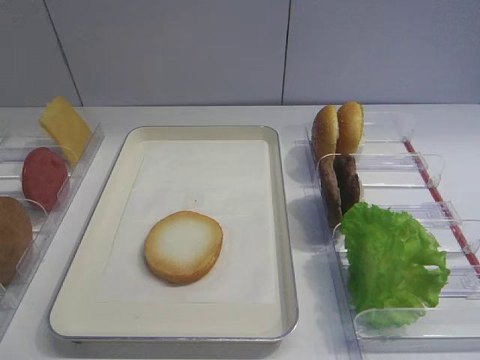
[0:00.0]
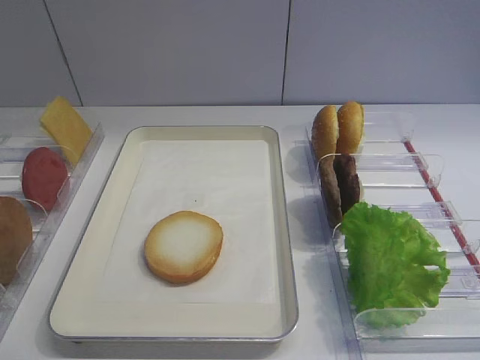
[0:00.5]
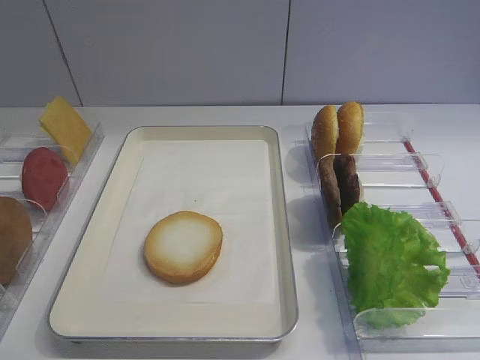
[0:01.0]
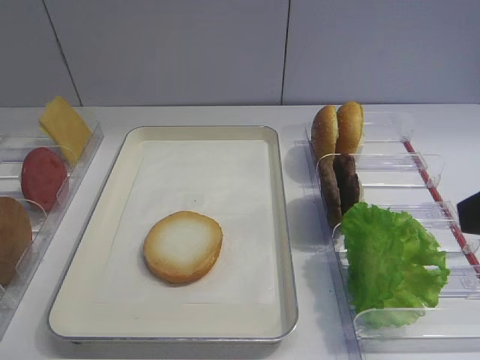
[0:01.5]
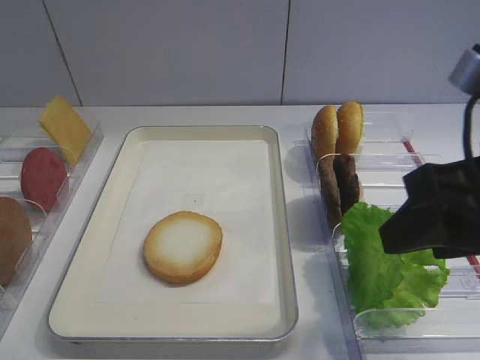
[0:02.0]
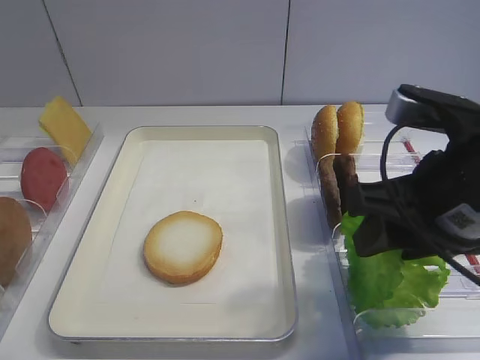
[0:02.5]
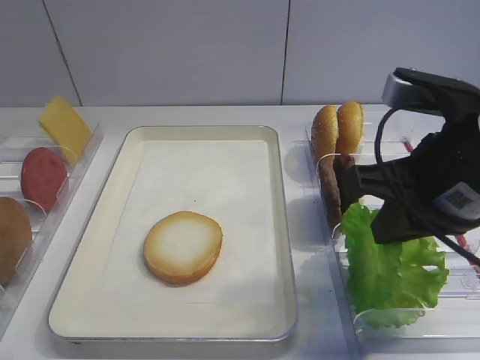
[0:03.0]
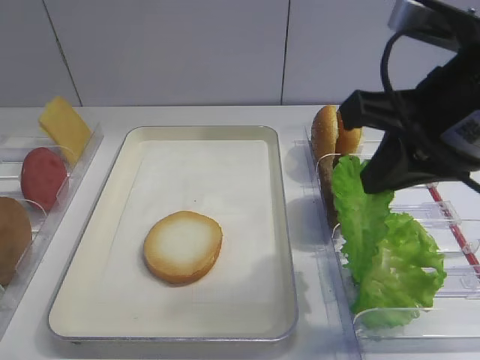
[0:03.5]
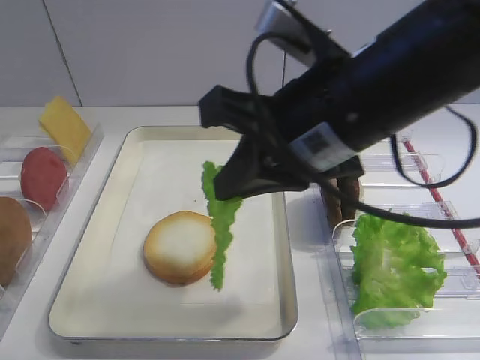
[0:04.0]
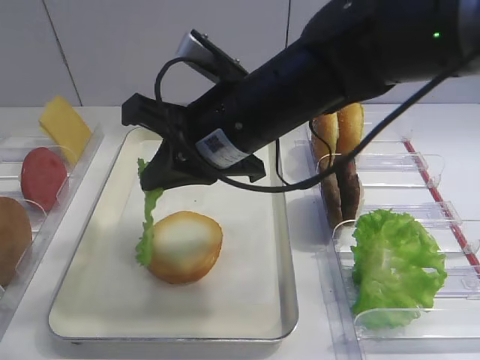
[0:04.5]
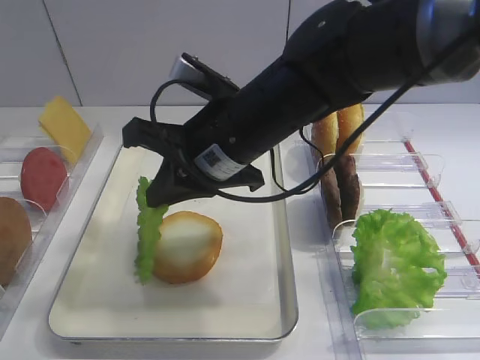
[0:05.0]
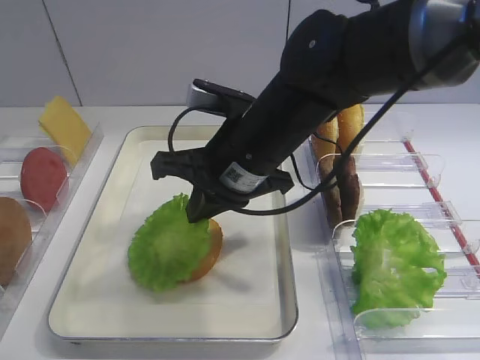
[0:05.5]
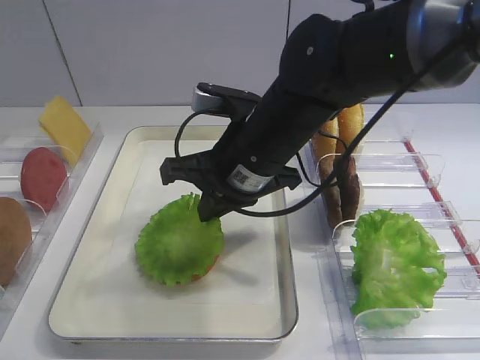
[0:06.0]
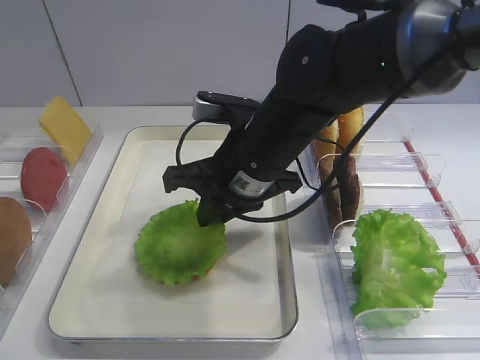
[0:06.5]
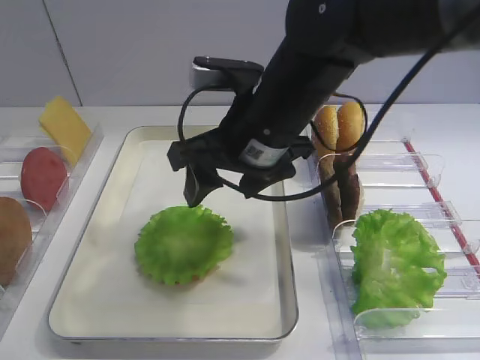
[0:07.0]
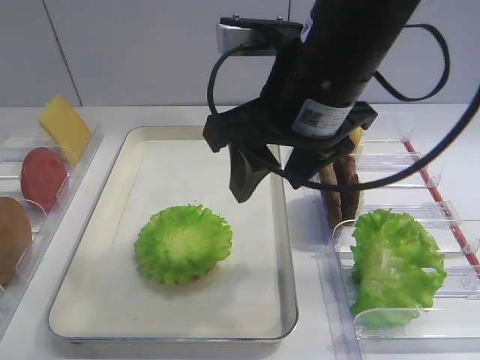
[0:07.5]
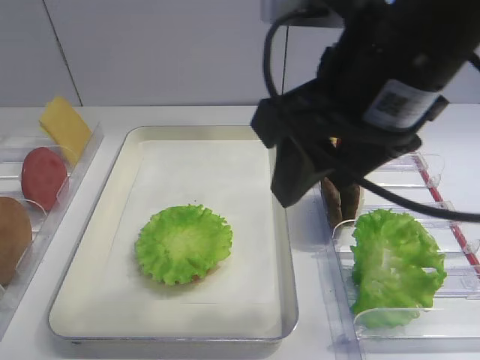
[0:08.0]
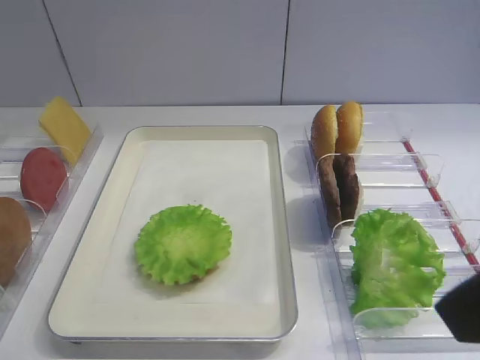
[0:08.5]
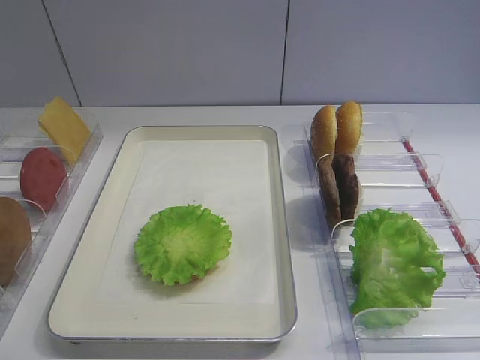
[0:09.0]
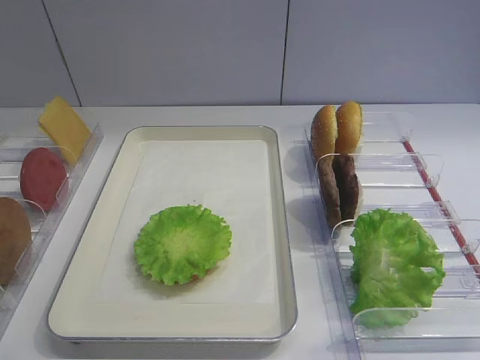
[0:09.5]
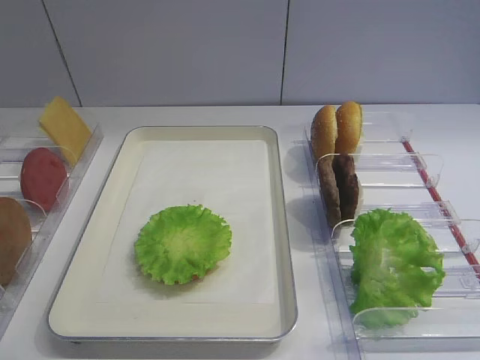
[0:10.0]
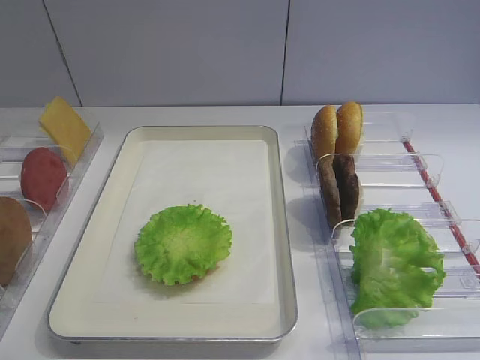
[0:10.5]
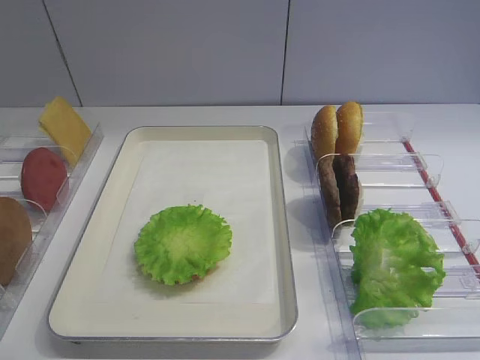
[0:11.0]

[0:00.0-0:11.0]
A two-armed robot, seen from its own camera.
Step, 0:00.0 to 0:03.0: Pick up the lettuce leaf with the right gripper.
Step, 0:03.5 to 0:07.0: Place the lettuce leaf on the bread slice with the right gripper.
0:02.0 to 0:03.5: The right gripper shifts by roughly 5 cm, and closes its fingers.
0:03.5 to 0:05.5: The right gripper goes approximately 20 cm to the left, downward and forward.
0:05.5 to 0:07.5: The right gripper is displaced upward by roughly 10 cm, and opens.
0:07.5 to 0:09.0: The right gripper moves backward and to the right, about 30 cm.

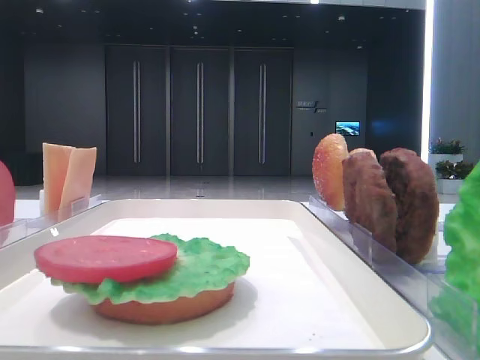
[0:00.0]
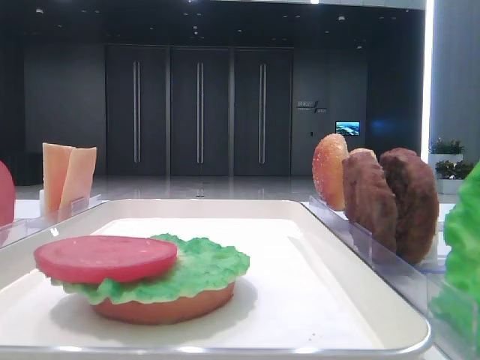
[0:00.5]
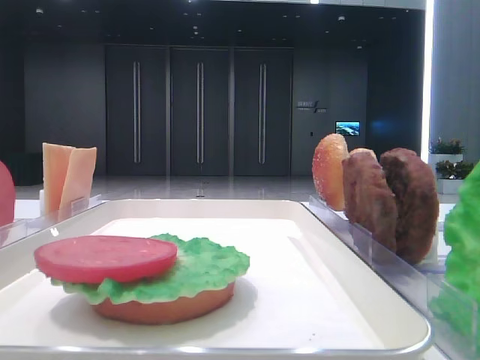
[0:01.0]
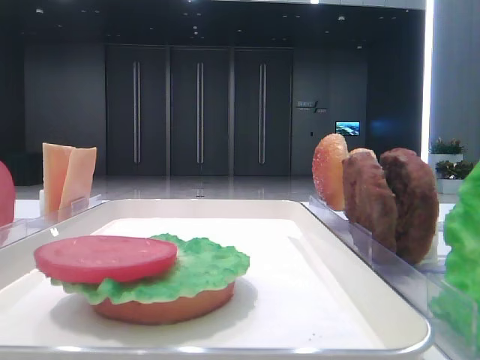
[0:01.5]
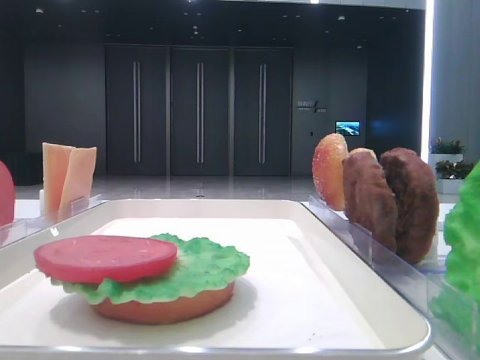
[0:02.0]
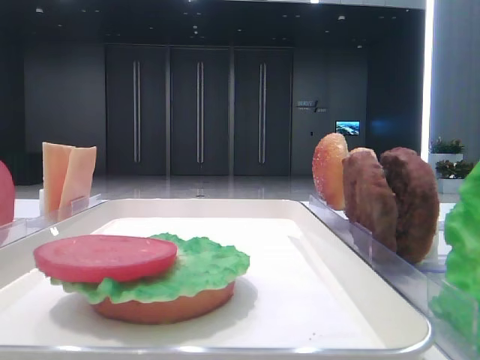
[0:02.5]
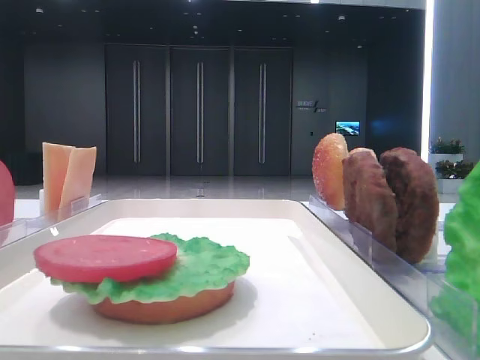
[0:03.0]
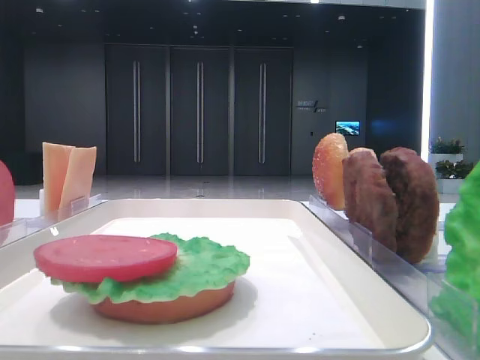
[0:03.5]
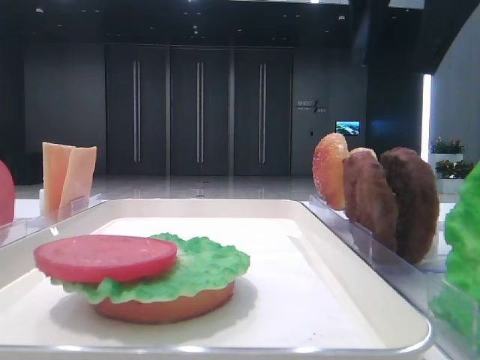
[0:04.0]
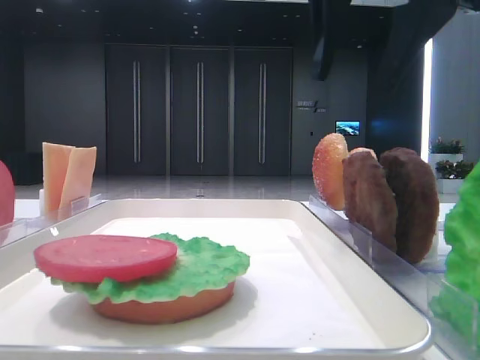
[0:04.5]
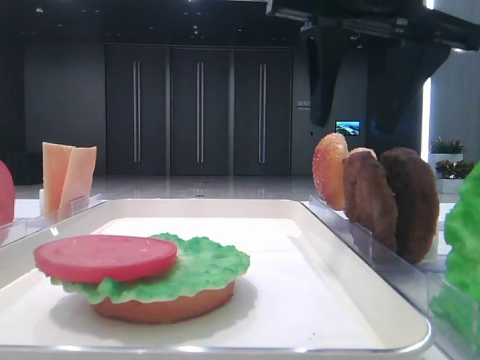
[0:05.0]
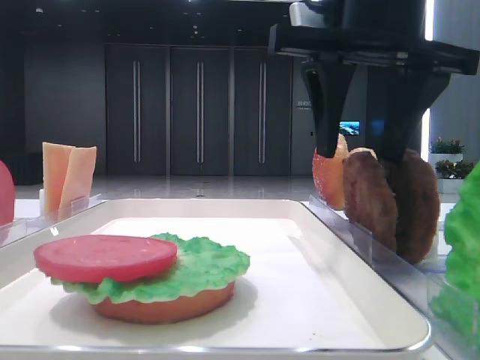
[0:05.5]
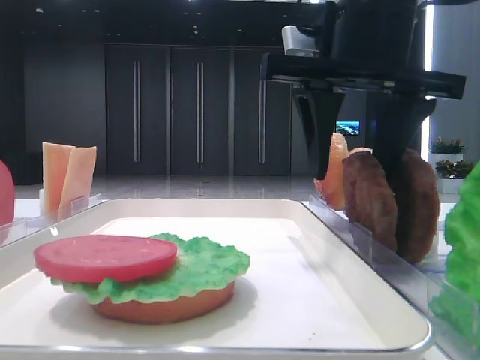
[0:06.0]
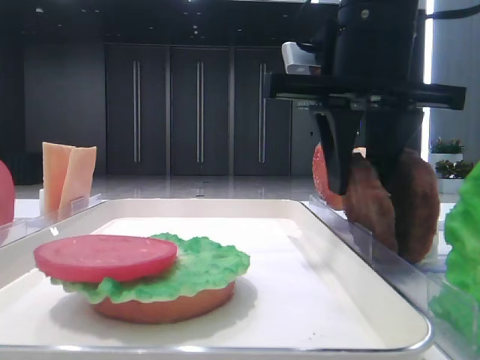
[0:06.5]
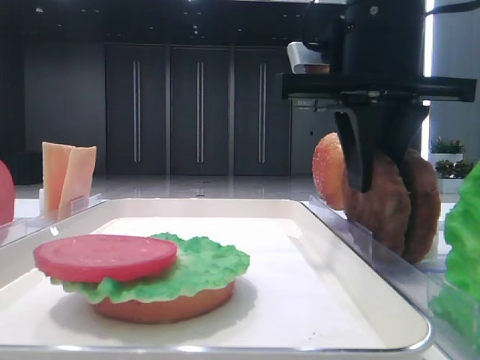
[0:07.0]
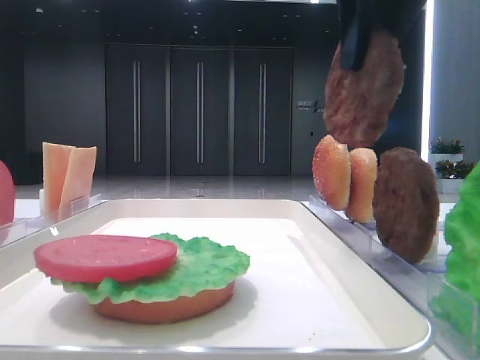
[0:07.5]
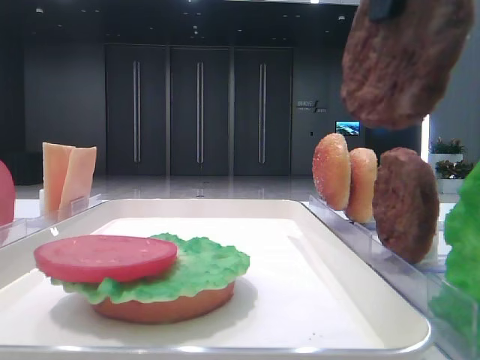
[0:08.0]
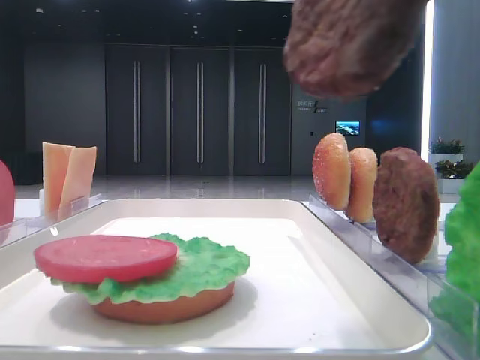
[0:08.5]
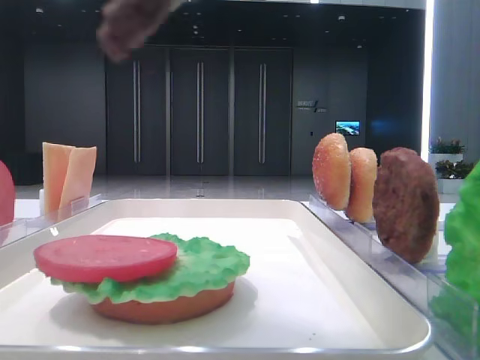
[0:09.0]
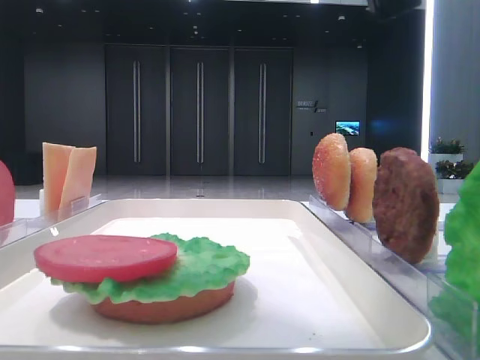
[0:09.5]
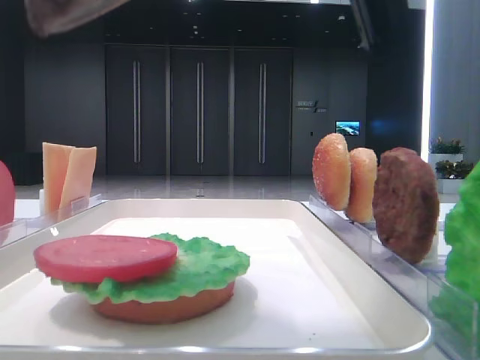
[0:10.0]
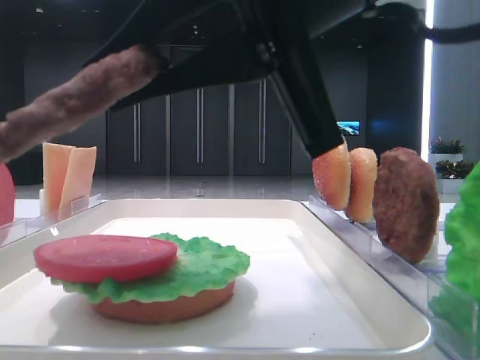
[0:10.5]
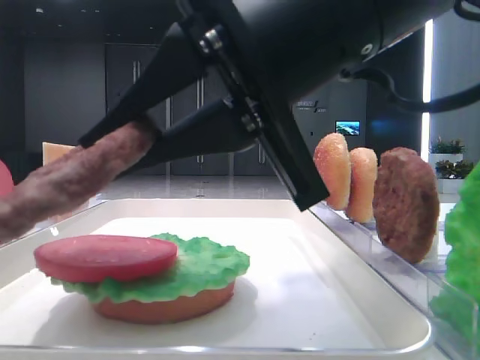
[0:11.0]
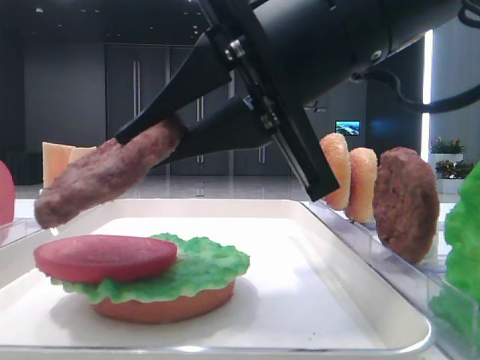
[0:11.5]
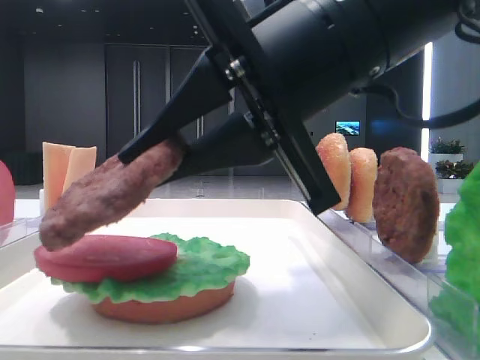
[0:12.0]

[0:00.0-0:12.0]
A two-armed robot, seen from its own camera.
Step, 0:00.0 to 0:06.5: Grab the patty with the right hand.
0:02.0 to 0:04.0: The right gripper goes roughly 25 cm to the left and forward.
0:04.0 to 0:06.0: The right gripper heads downward, covering roughly 10 cm.
0:06.0 to 0:08.0: The right gripper moves backward and upward, roughly 15 cm, and closes up.
0:08.0 to 0:10.0: The right gripper shifts approximately 5 cm downward.
0:10.0 to 0:12.0: The right gripper heads downward and forward, covering some 10 cm.

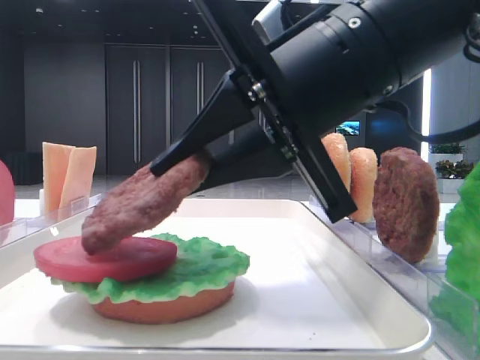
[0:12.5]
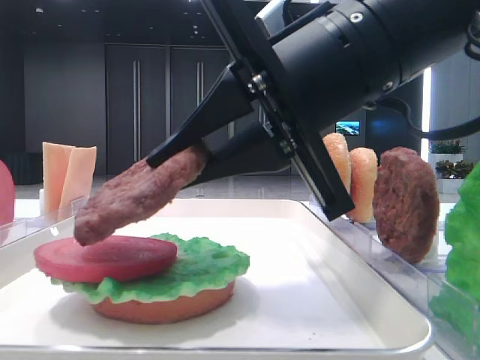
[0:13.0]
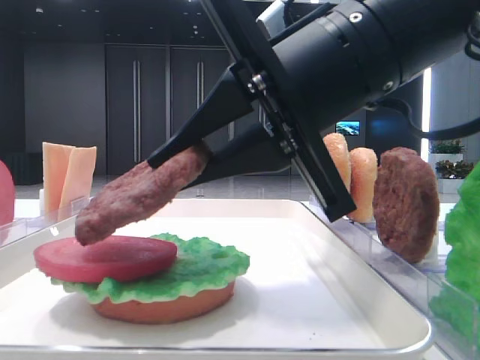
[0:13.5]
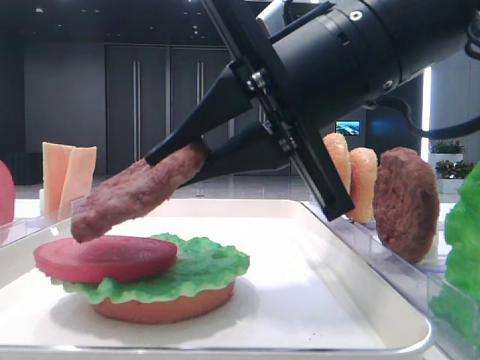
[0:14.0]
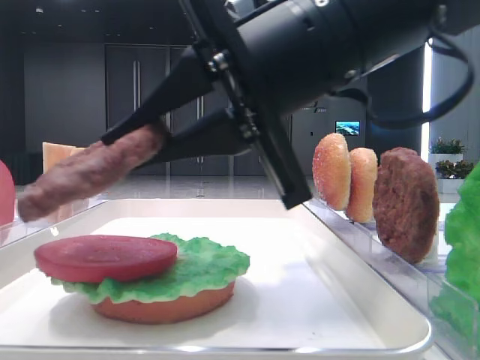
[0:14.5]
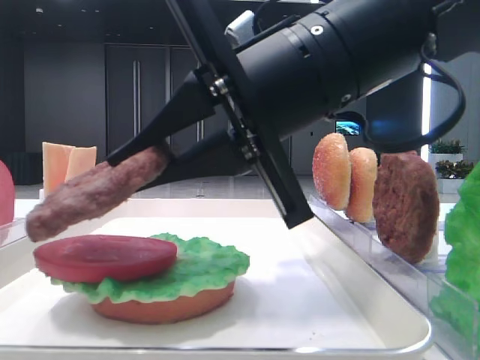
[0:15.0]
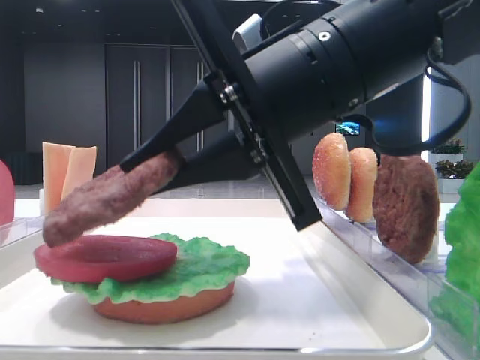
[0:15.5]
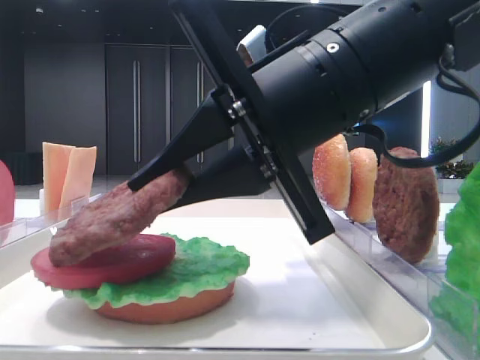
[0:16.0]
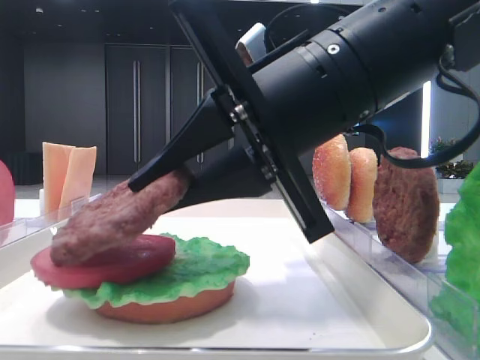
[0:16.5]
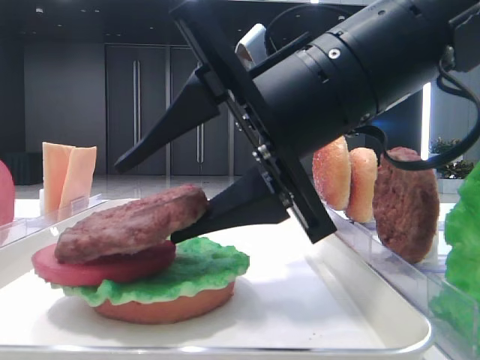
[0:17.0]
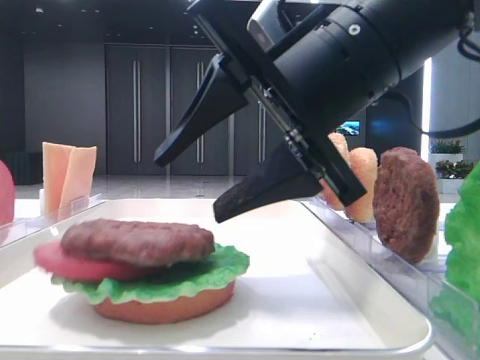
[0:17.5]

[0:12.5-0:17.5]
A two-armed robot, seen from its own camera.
Step, 0:12.5 to 0:17.5: Place the patty on the tomato slice with the right hand.
0:15.0 to 0:17.5: The right gripper opens up.
